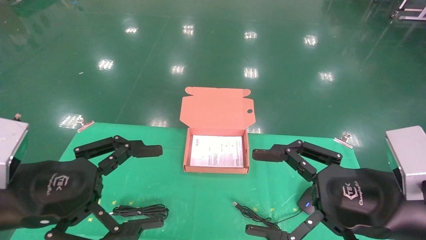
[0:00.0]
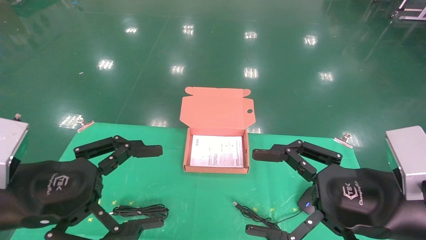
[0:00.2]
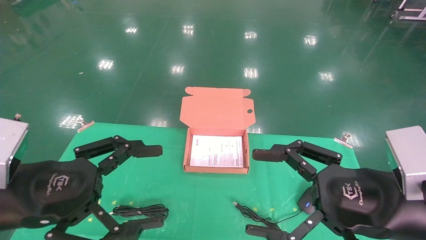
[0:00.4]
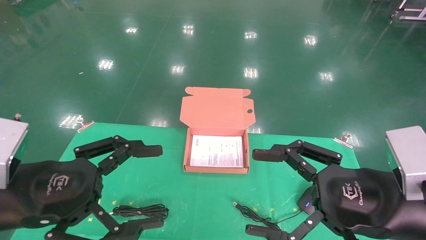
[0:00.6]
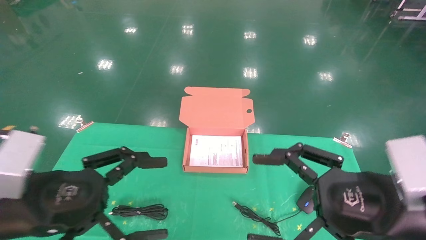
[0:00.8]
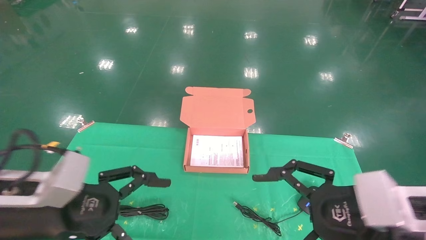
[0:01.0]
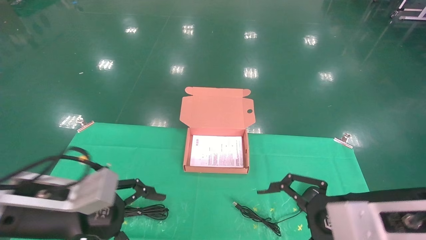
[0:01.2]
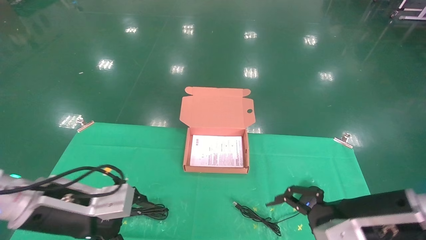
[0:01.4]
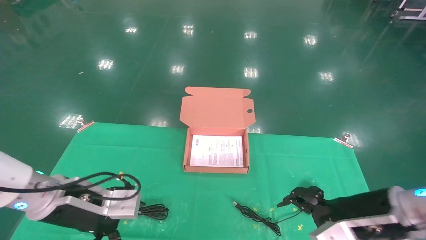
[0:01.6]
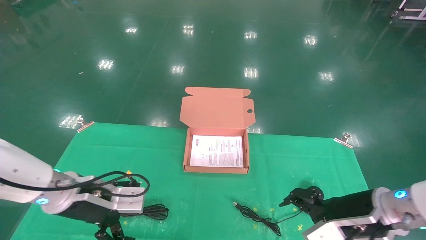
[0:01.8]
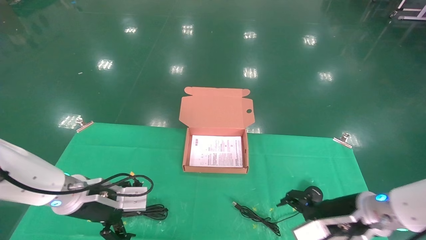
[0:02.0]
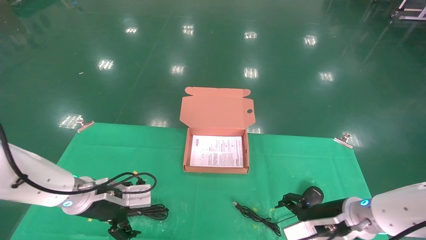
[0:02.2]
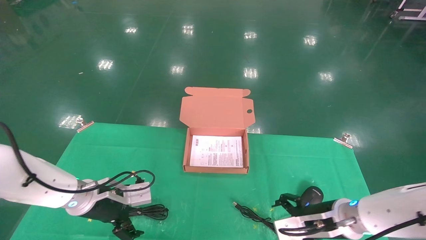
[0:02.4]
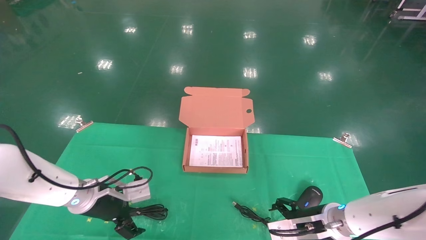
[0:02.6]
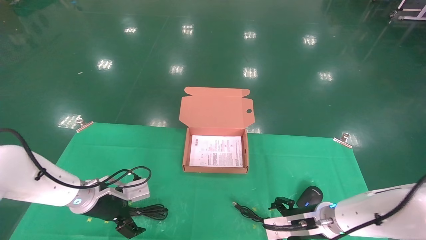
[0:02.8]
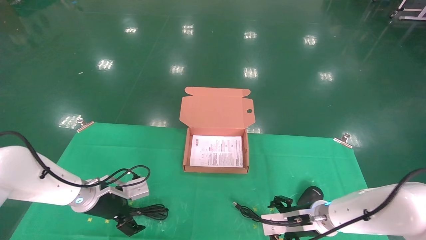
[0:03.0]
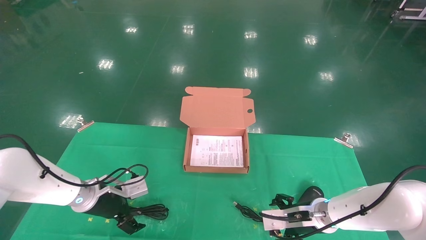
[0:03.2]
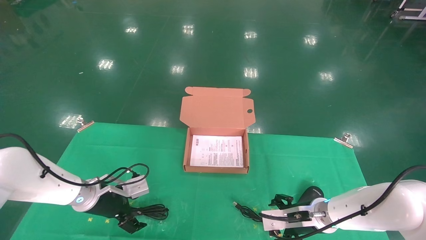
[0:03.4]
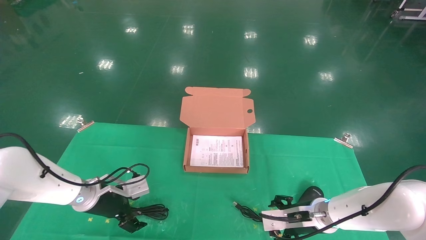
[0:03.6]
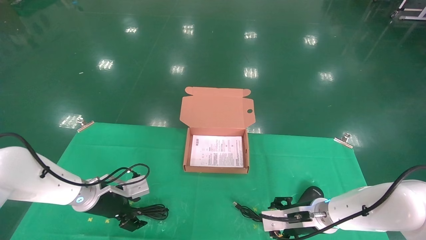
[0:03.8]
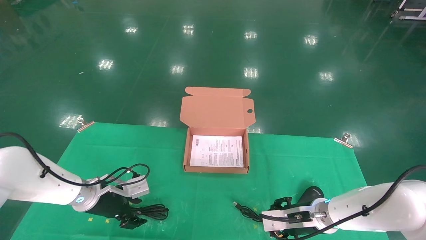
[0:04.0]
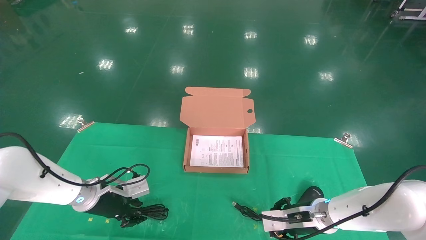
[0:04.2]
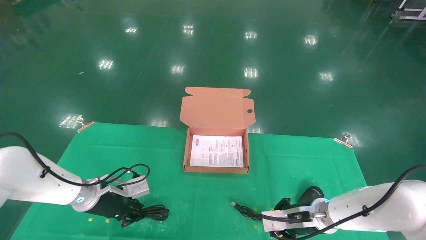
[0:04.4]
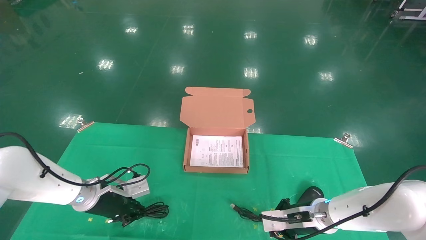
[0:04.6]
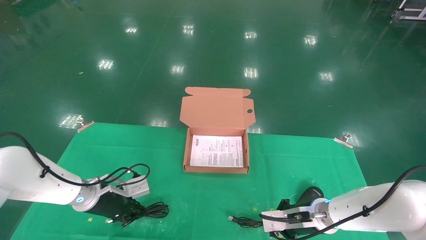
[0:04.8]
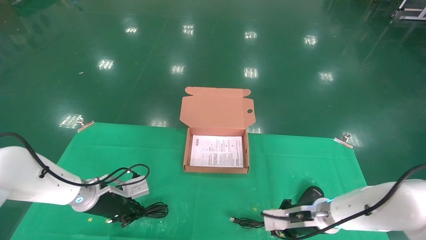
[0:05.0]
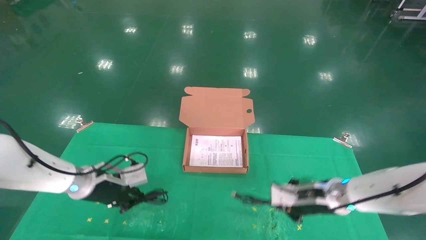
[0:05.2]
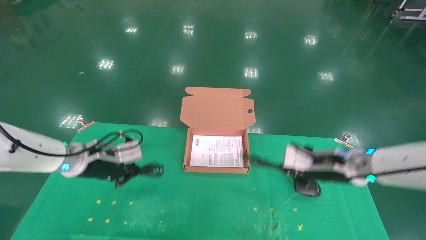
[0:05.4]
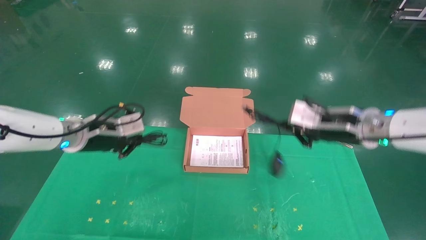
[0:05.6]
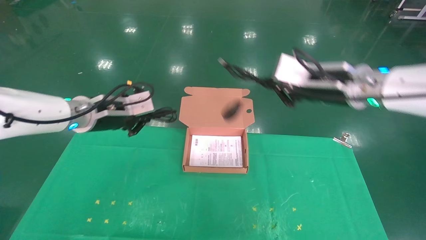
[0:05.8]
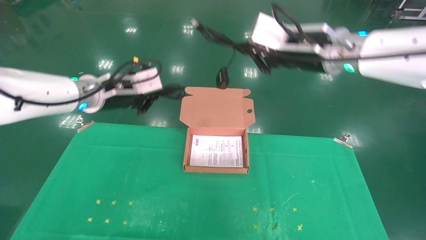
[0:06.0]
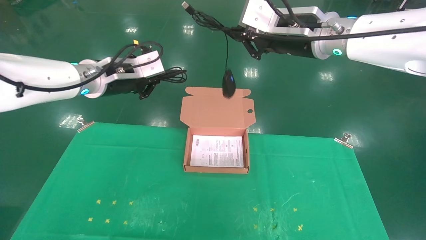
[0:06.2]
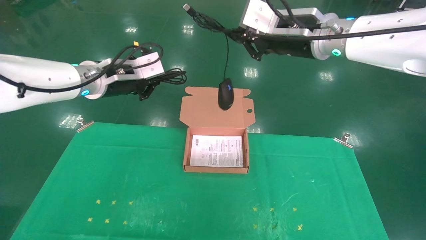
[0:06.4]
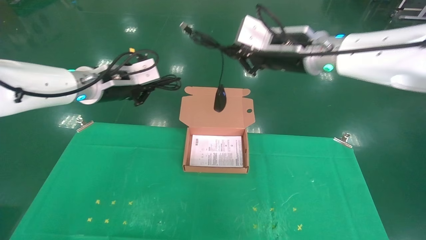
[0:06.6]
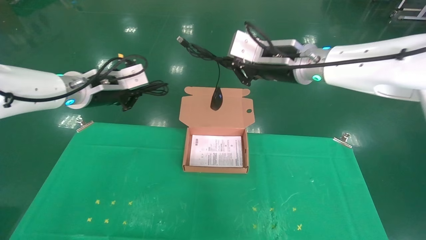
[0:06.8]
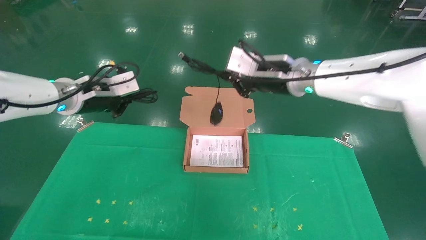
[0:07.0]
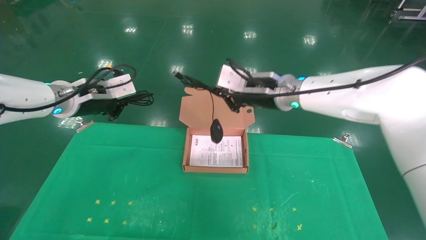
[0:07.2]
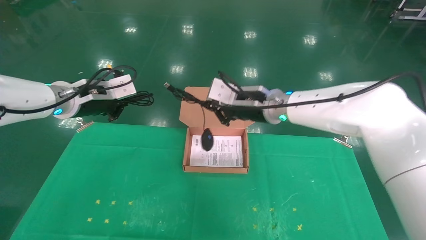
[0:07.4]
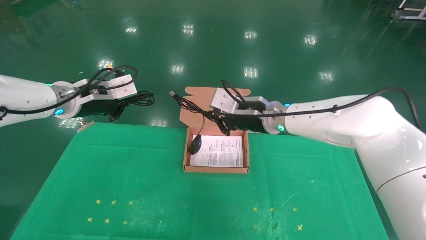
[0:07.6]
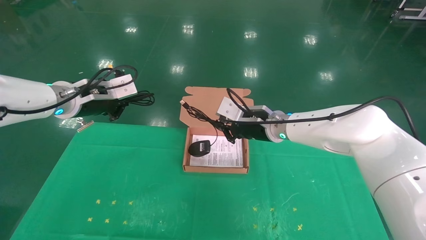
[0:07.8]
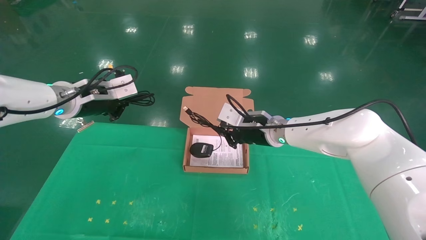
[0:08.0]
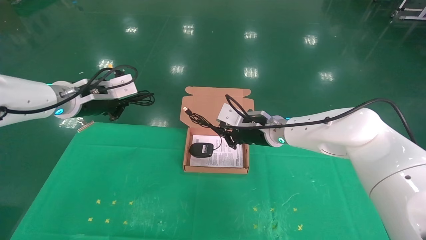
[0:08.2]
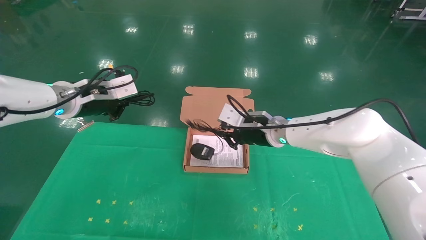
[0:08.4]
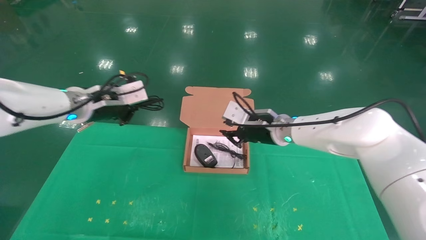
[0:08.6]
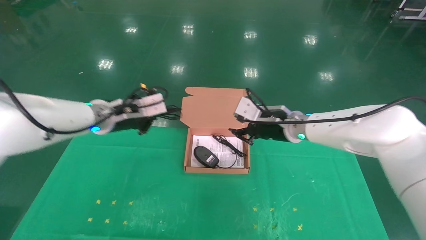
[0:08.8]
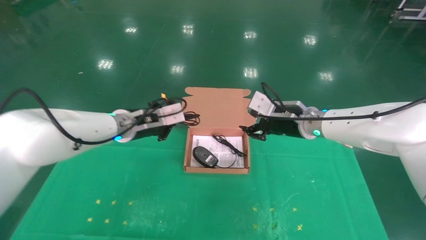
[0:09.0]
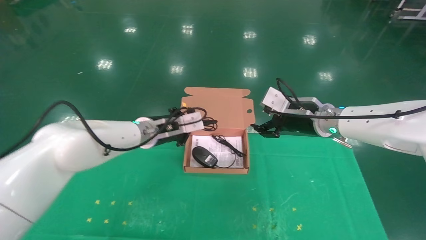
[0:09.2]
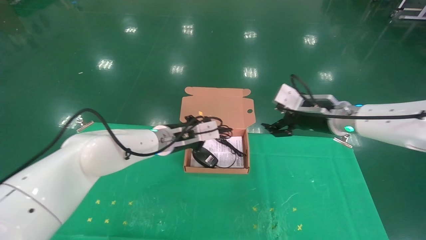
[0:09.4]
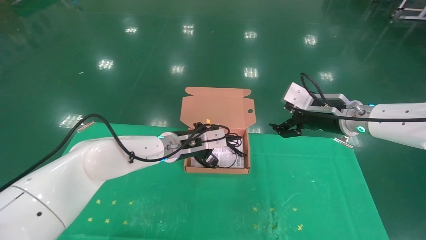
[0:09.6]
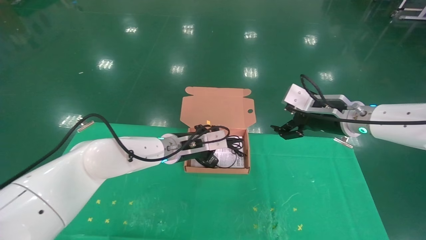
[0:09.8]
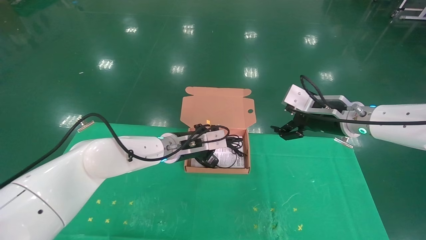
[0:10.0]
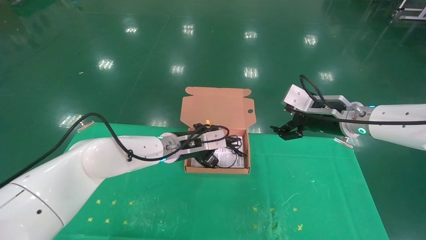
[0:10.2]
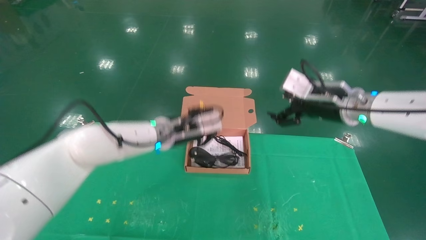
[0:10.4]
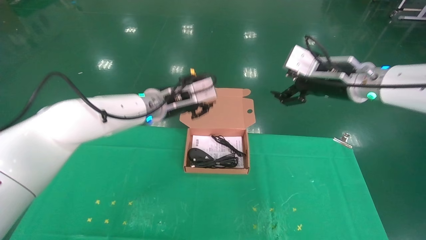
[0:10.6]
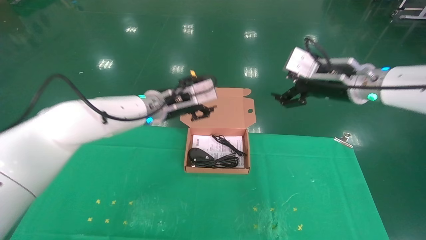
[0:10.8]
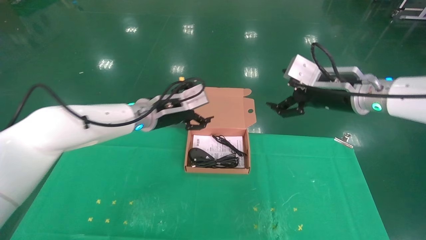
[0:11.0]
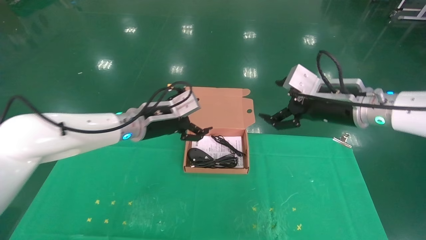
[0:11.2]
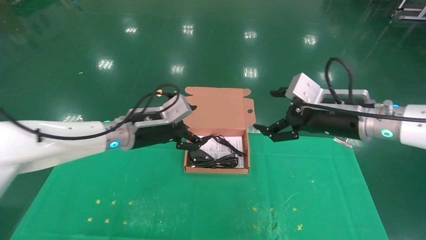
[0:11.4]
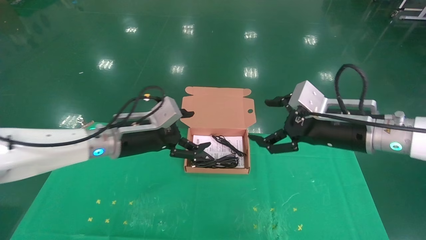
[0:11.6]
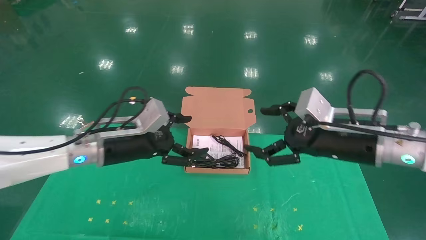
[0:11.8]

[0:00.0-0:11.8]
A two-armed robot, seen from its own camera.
Task of the whole recording: grasp data cable left put into box grasp mouse right put into box.
Step, 0:01.0 to 0:05.4: Grab and pick up both the mouse and power cord from the accessory packaging area at the same time.
Step, 0:05.6 to 0:10.6: Place the mouse and power cord into the box.
0:00.0 to 0:01.4: The two grippers go some 10 cm forward and downward.
0:01.4 to 0:03.0: Both grippers move forward and downward, some 20 cm.
0:03.0 to 0:04.4: The right gripper closes up. Meanwhile the left gripper closes its fingers.
0:04.4 to 0:06.0: Both grippers move upward, approximately 30 cm.
0:06.0 to 0:07.4: The right gripper goes some 15 cm downward, to the left and forward.
0:07.4 to 0:08.8: Both grippers move to the right, roughly 5 cm.
0:08.8 to 0:10.4: The left gripper is displaced to the right by some 10 cm, while the right gripper moves to the right, upward and backward, approximately 10 cm, and opens its fingers.
0:10.4 to 0:11.8: The left gripper heads to the left and backward, covering some 15 cm, and opens its fingers. Meanwhile the right gripper is displaced backward by some 10 cm.
